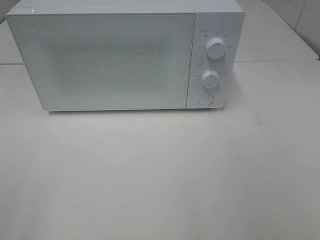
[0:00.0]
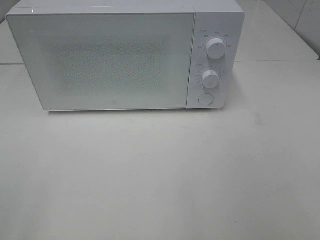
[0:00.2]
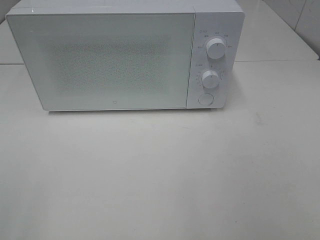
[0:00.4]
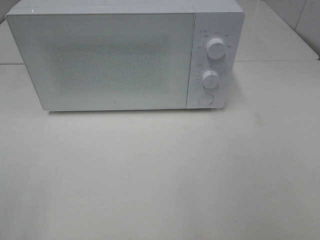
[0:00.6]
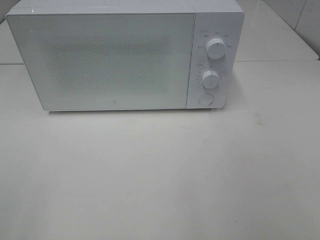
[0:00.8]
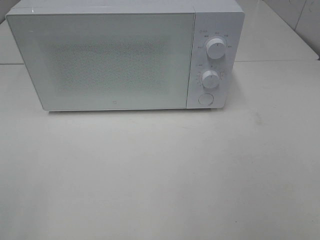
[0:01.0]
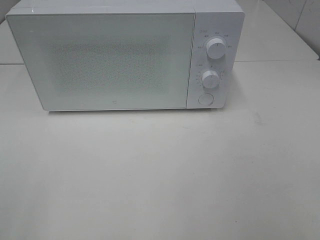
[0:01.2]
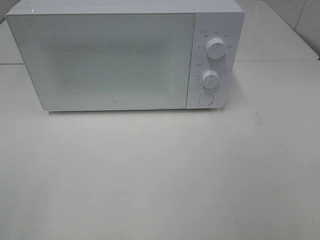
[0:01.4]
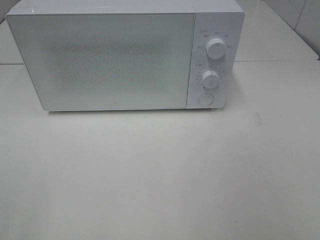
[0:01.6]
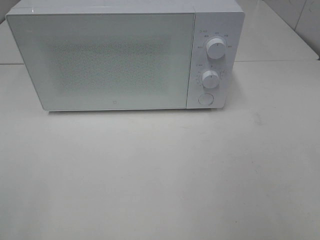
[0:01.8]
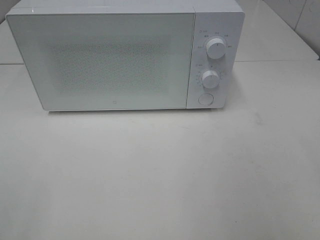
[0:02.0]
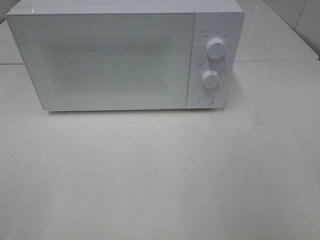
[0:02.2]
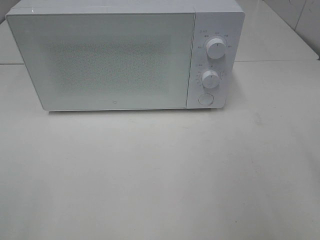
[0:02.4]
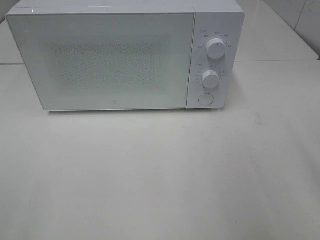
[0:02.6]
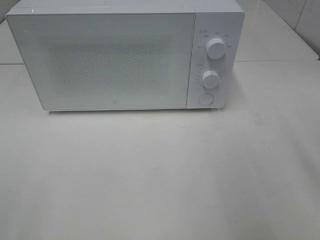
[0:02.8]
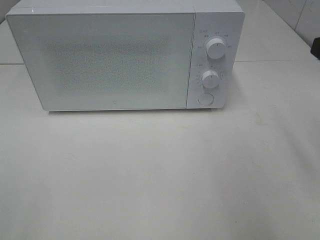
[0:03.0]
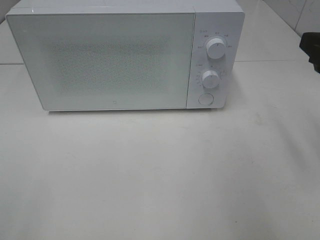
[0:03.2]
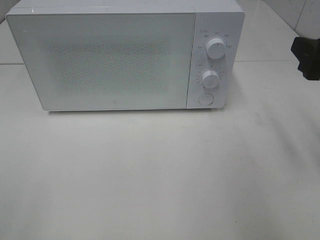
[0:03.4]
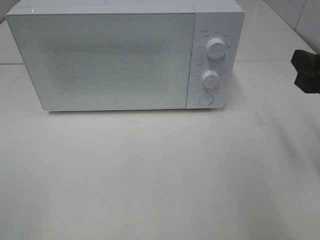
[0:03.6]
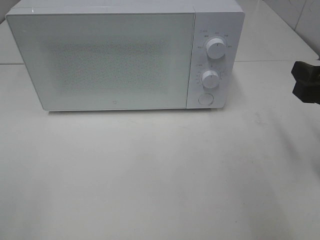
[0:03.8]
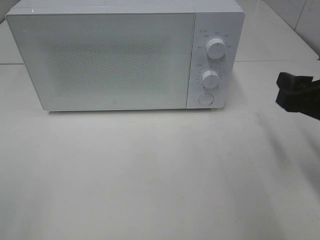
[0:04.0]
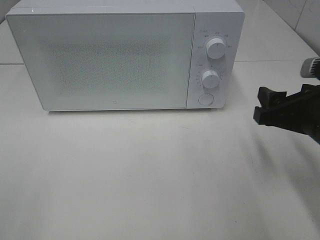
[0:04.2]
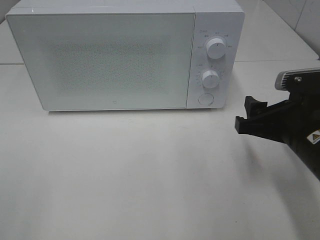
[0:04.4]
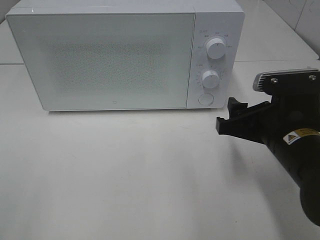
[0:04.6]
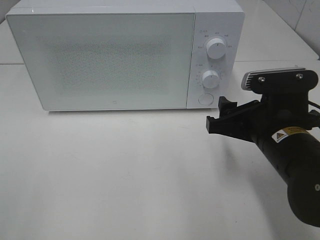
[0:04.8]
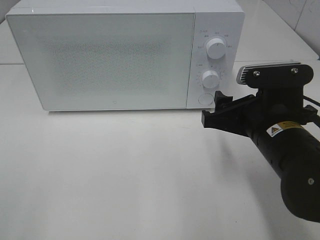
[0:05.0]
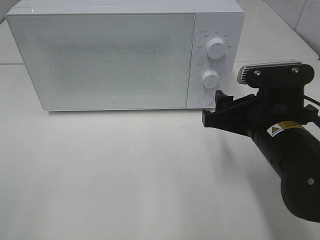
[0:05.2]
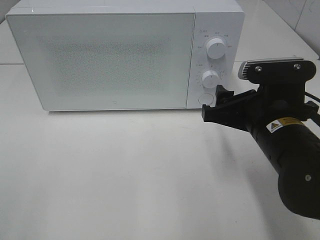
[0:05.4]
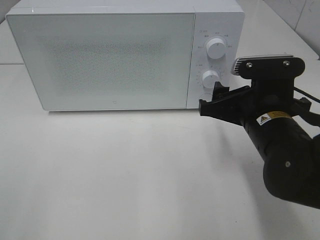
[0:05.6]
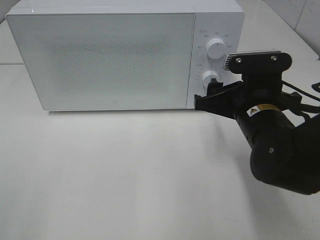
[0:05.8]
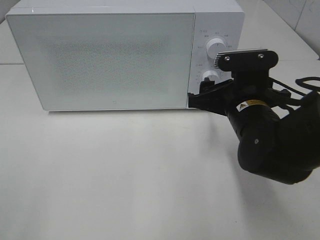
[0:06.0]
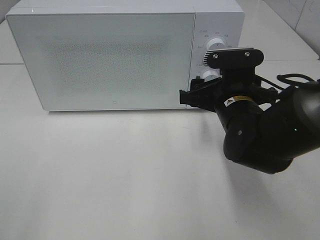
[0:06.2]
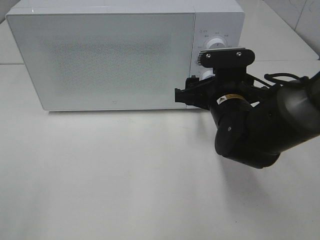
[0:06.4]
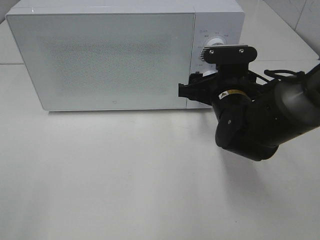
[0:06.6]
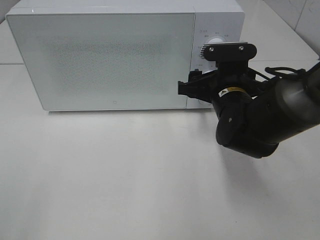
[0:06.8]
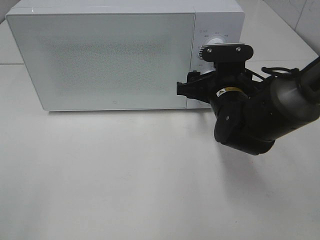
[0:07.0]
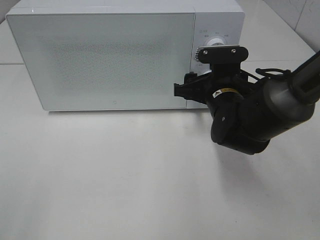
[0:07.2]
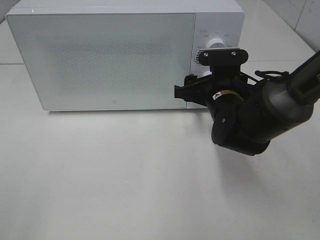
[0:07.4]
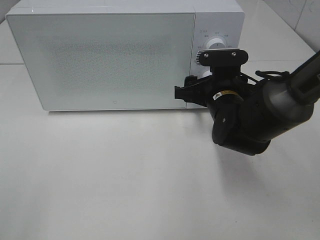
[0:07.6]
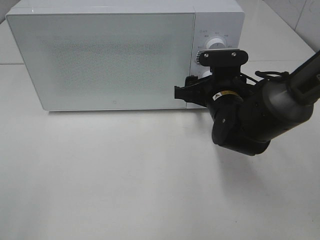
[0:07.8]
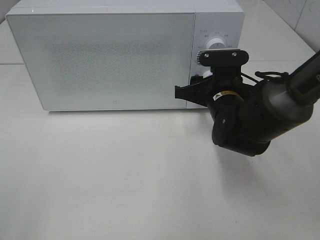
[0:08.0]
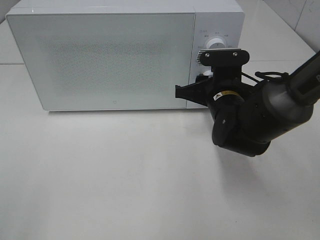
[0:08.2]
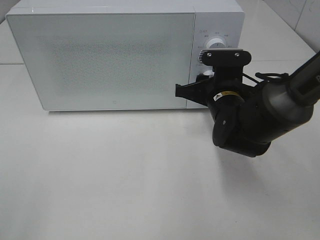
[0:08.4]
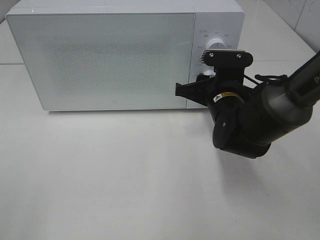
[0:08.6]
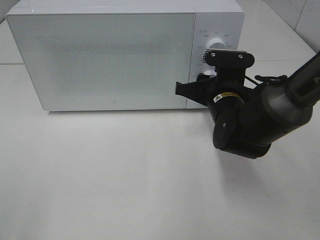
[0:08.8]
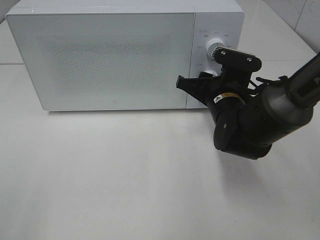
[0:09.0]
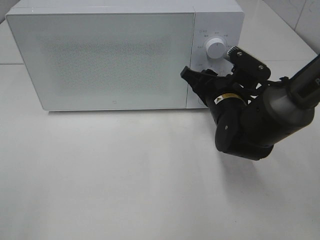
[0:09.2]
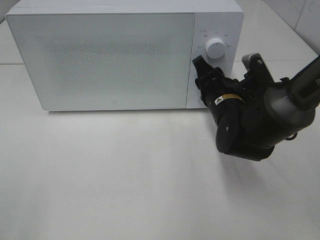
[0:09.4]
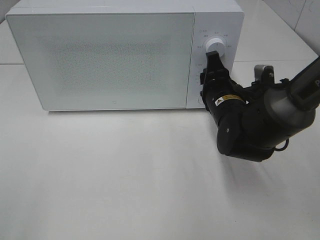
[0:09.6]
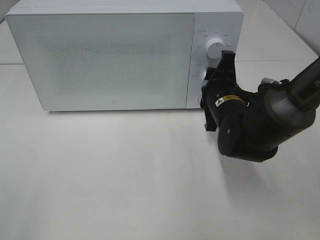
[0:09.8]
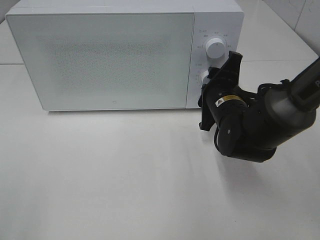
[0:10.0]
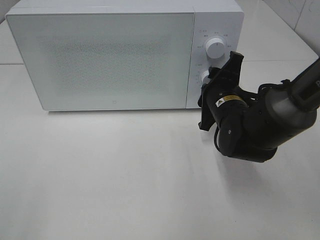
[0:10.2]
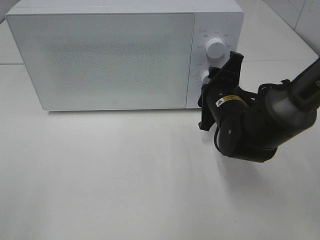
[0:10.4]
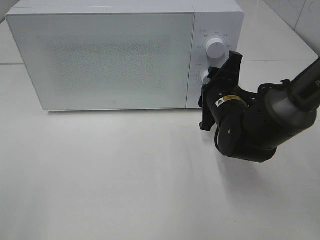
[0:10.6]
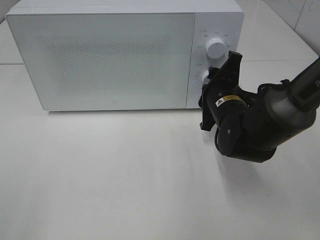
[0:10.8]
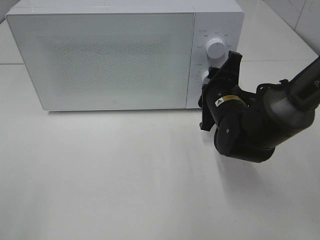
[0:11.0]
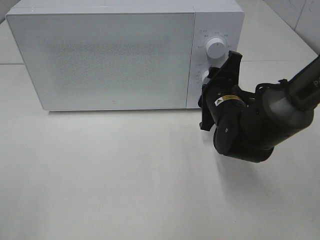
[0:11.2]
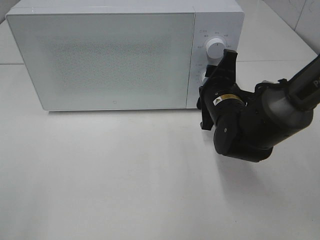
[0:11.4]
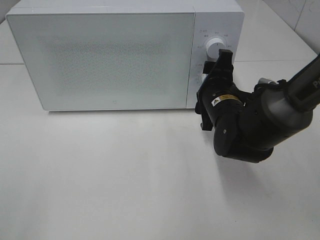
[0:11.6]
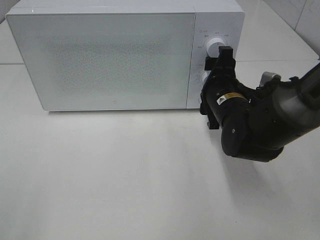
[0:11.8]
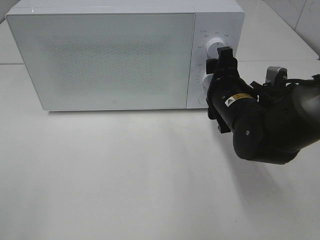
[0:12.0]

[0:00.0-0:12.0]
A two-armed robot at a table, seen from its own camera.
Task of the whole recording: Heat the burger.
Step, 0:00.0 to 0:11.4: Right hand: twist timer button.
0:03.0 to 0:04.4: The right gripper heads downward and to the left, covering approximately 15 cm.
0:04.4 to 0:06.0: The right gripper shifts approximately 10 cm forward and to the left.
0:06.0 to 0:07.6: The right gripper goes approximately 5 cm forward.
0:07.6 to 0:09.0: The right gripper closes.

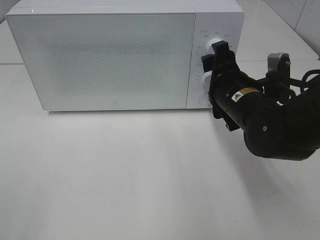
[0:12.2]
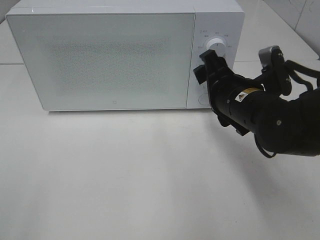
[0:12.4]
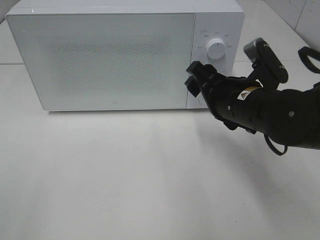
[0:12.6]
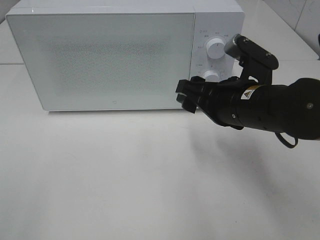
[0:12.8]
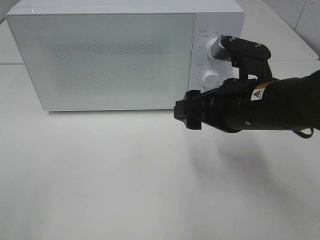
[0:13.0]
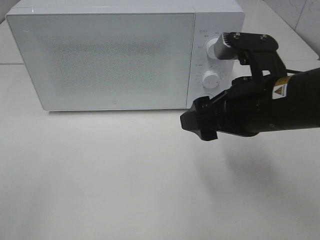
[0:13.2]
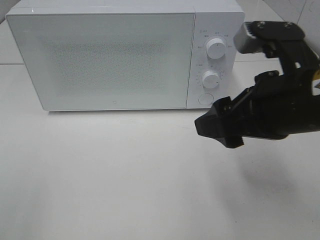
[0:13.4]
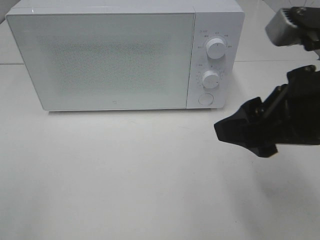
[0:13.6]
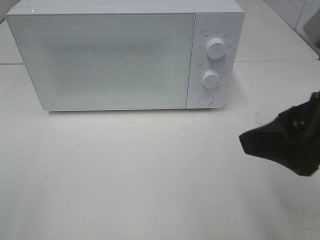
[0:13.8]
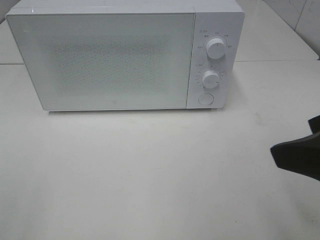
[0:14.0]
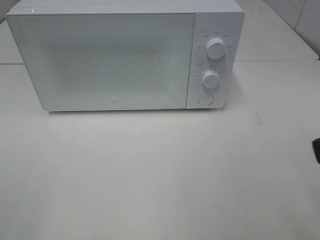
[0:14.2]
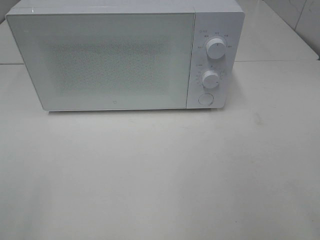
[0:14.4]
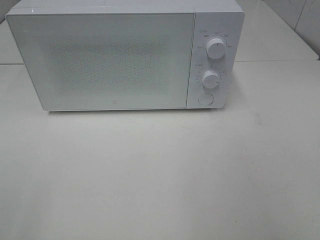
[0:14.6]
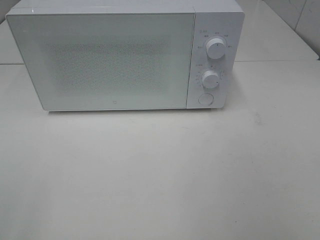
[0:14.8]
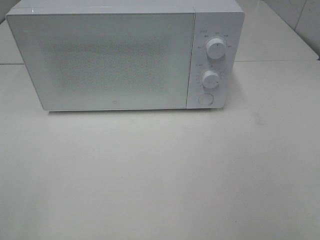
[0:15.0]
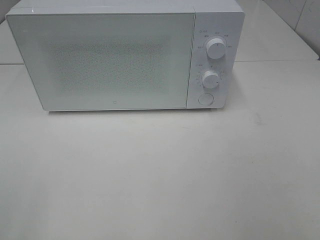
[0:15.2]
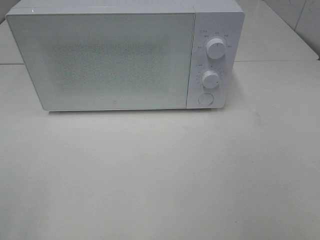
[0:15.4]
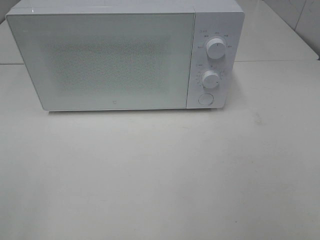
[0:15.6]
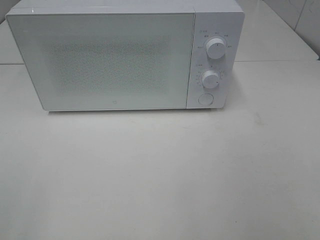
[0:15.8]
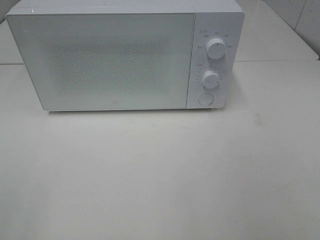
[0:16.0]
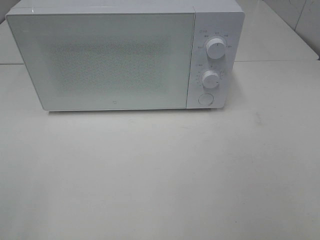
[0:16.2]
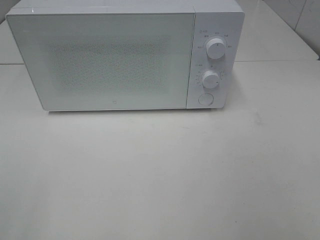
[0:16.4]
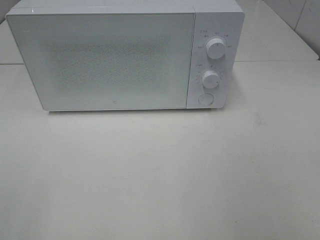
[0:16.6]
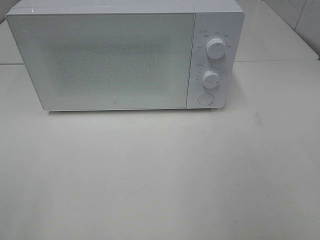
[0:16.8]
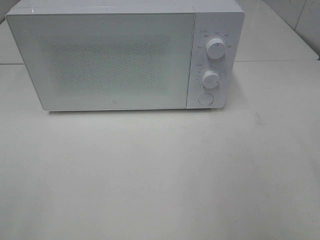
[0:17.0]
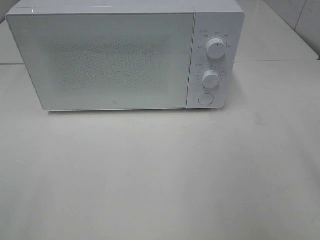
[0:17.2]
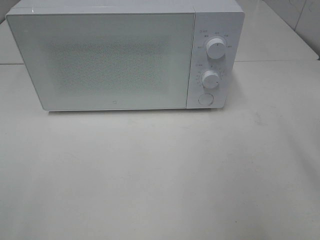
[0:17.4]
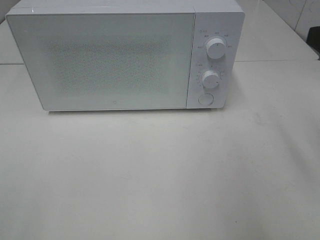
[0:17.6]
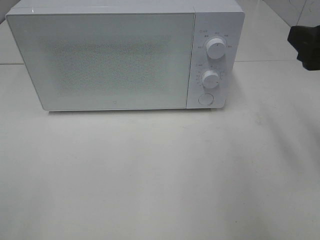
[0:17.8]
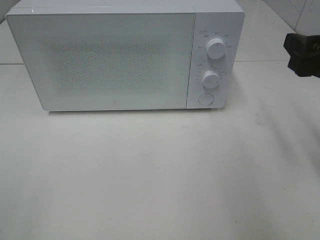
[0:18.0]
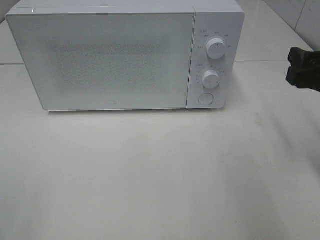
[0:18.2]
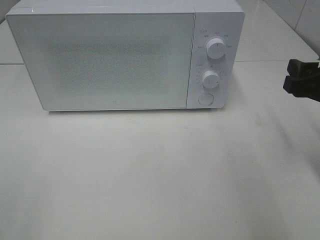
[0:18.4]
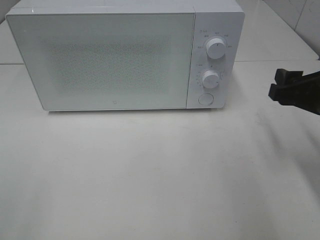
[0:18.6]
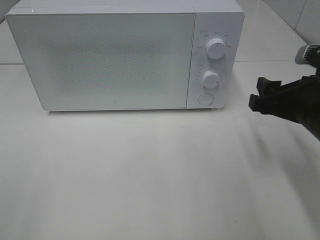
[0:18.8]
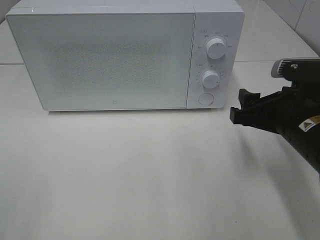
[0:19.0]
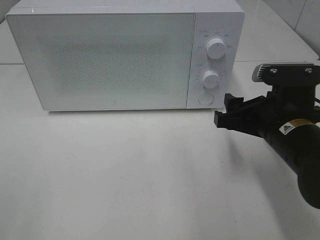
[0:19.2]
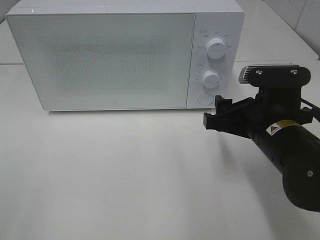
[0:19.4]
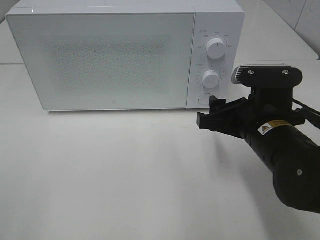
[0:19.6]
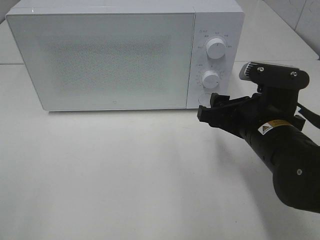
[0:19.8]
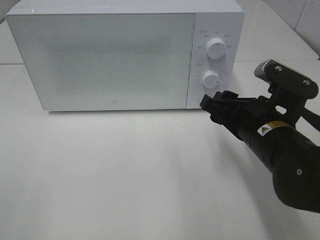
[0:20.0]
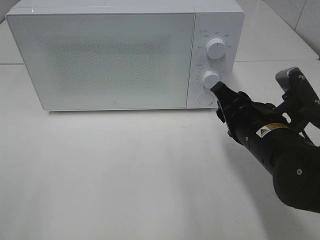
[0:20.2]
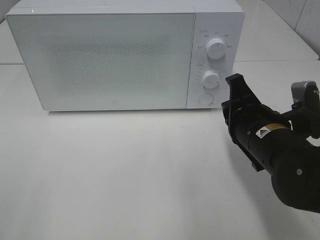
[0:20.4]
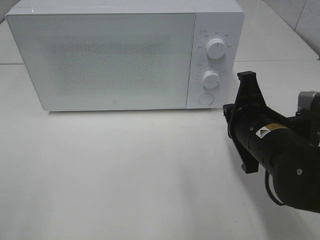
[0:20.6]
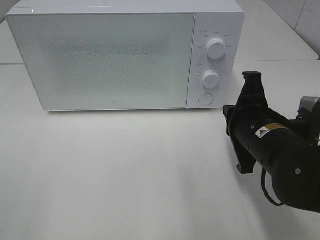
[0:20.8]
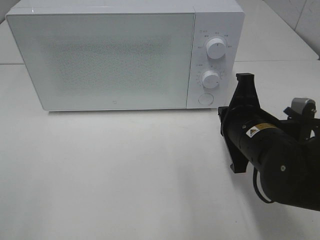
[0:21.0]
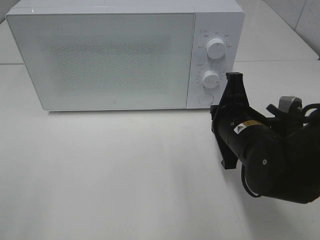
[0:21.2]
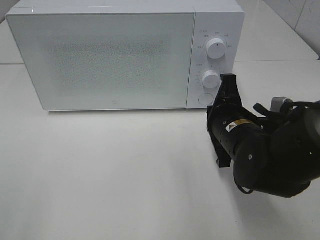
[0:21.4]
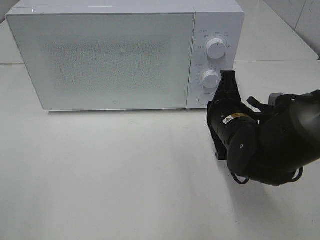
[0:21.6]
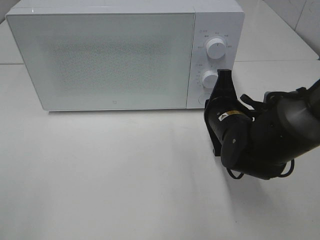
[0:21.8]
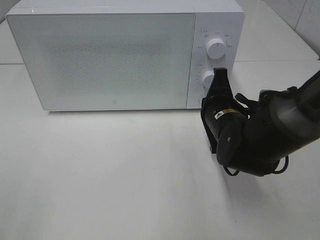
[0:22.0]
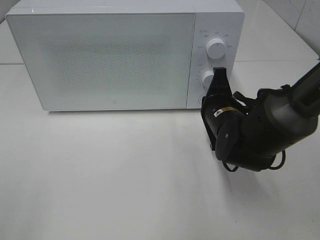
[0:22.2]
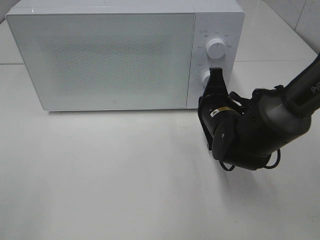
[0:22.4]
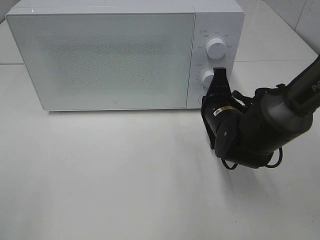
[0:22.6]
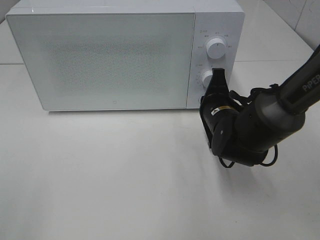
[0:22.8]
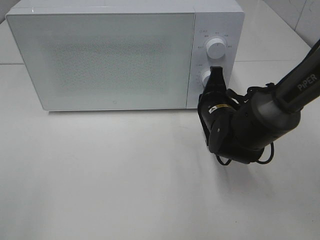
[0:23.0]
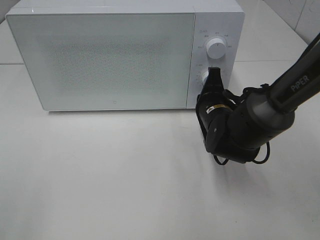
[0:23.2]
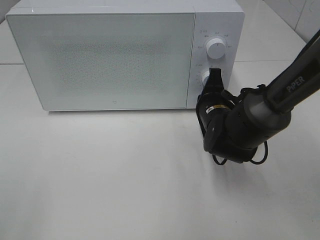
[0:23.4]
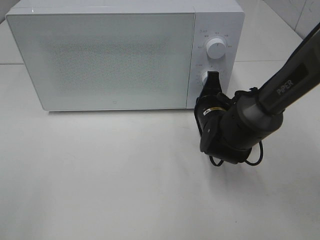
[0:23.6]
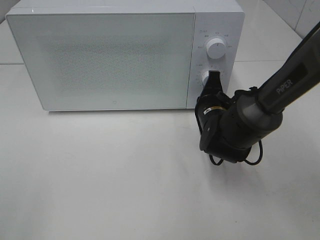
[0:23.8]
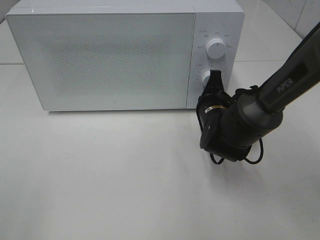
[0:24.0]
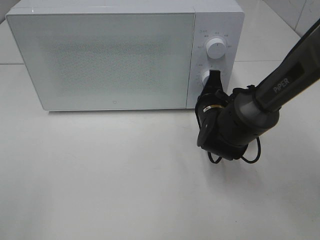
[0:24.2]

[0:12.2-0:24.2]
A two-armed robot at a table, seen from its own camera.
Task of the whole recording: Heat the burger.
0:12.2 to 0:13.8: The right gripper is displaced backward and upward by some 20 cm.
0:13.8 to 0:15.2: The right gripper goes approximately 15 cm backward and to the right.
0:16.6 to 0:18.2: The right gripper travels forward and downward by about 20 cm.
0:18.2 to 0:19.8: The right gripper moves to the left and downward, some 15 cm.
0:19.8 to 0:21.2: The right gripper closes.
0:21.2 to 0:22.6: The right gripper is displaced forward by about 5 cm.
0:22.6 to 0:24.2: The grippers move only a little.
